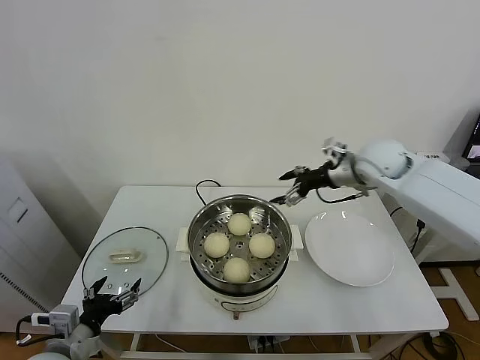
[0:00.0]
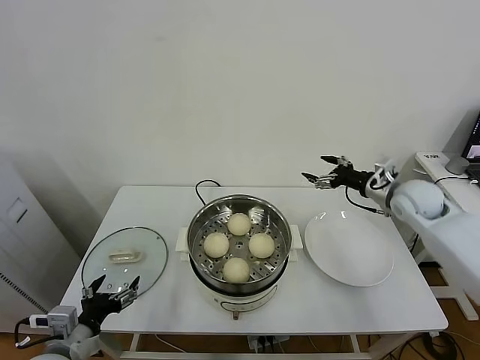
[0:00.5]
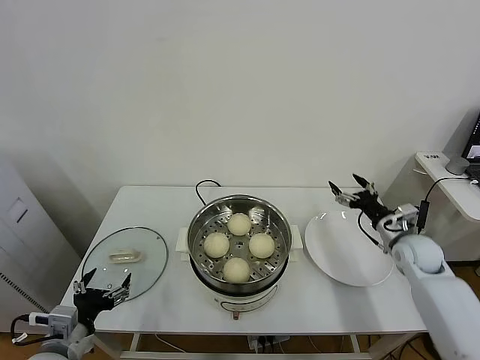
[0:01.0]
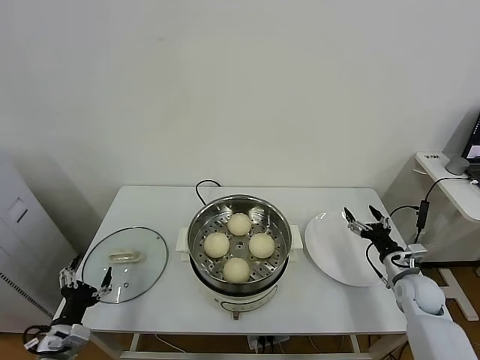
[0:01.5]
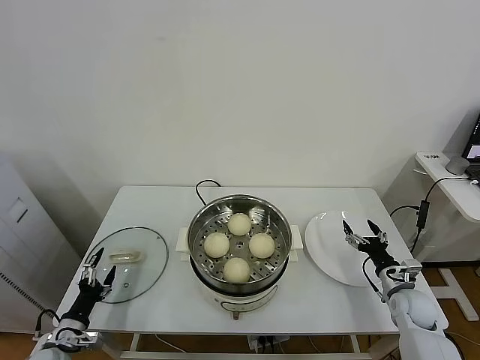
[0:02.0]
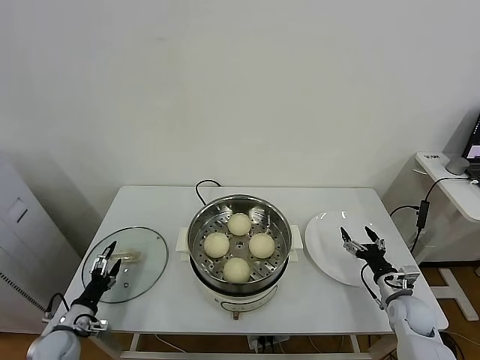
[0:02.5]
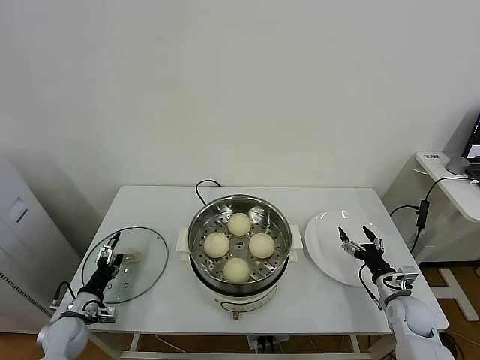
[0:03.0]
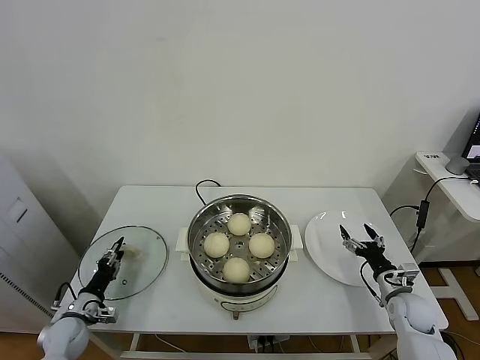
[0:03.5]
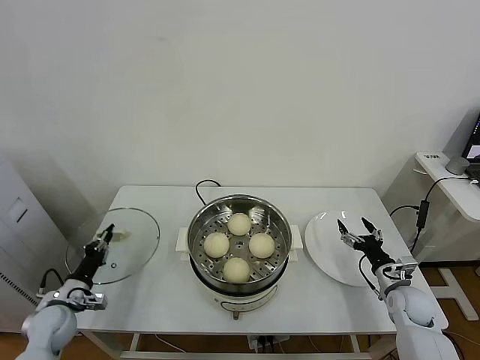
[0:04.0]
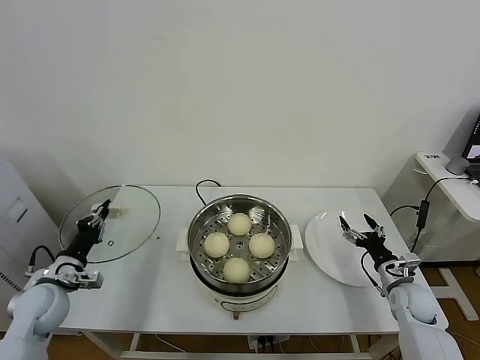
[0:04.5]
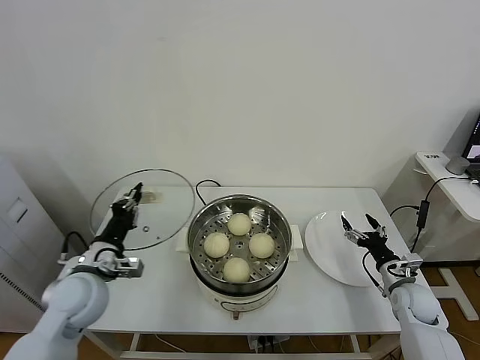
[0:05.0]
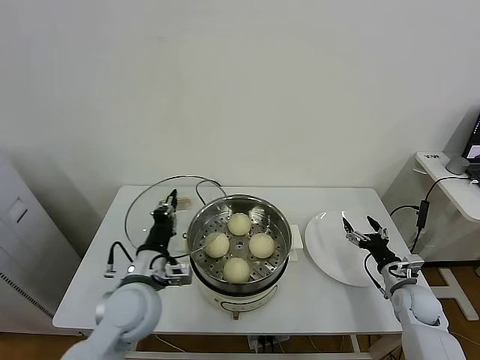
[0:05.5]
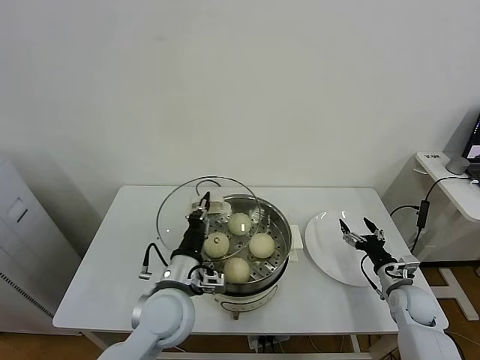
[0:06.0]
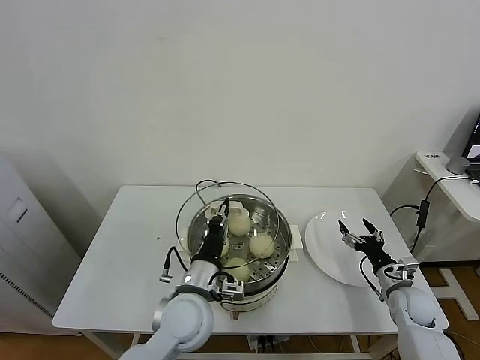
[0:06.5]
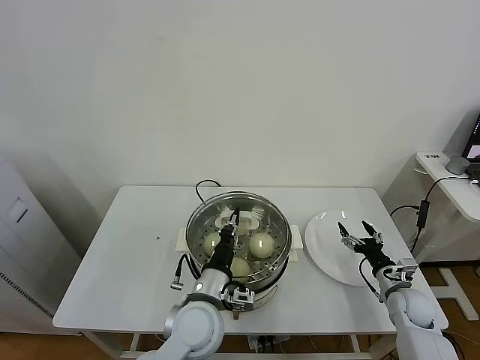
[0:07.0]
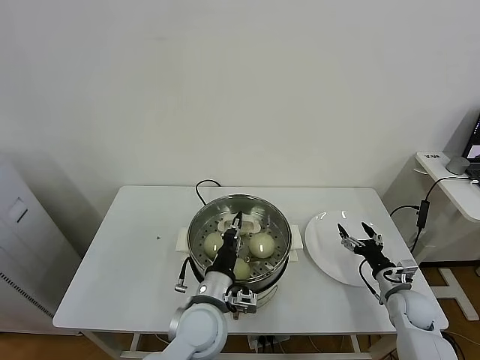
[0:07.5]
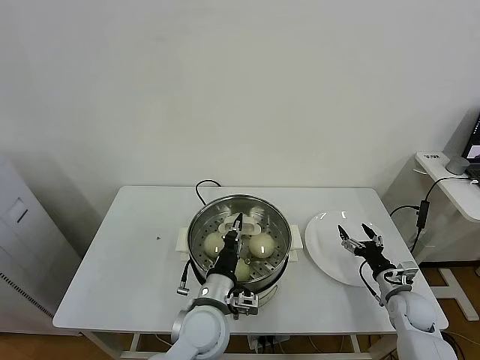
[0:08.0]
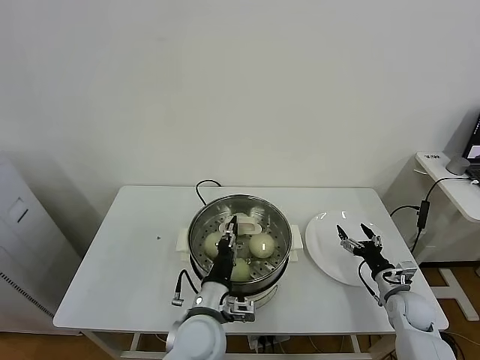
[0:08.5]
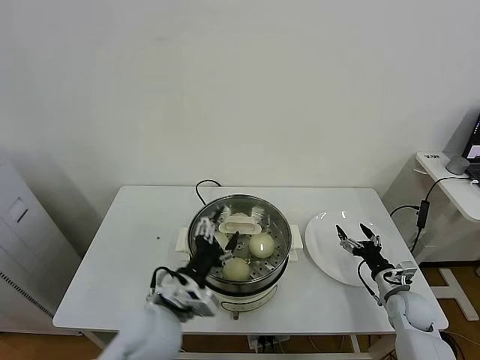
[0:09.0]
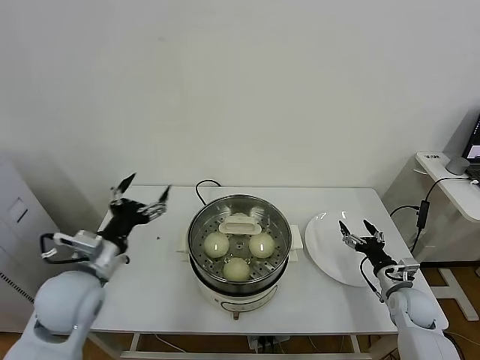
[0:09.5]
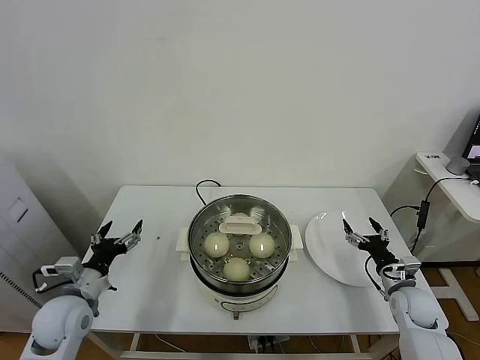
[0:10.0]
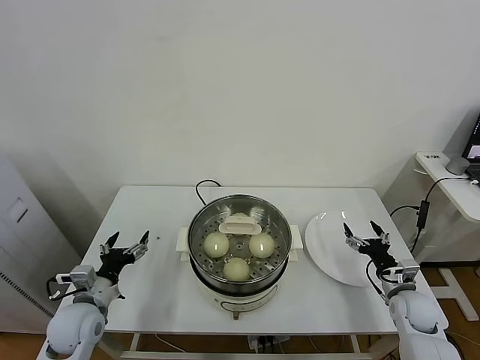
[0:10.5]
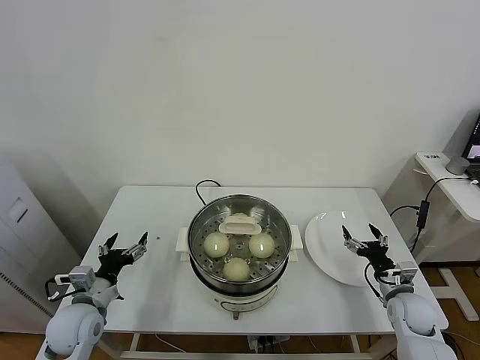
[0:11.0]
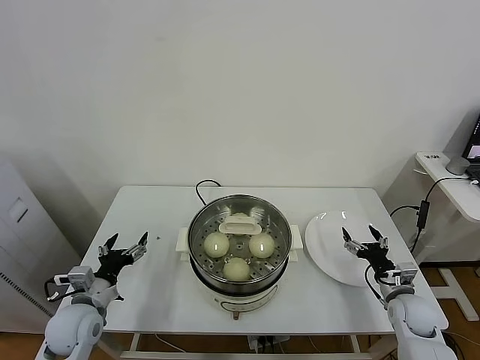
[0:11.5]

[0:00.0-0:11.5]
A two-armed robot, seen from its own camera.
Task of the whole recording: take steamed baozi put them in steamer.
Step, 0:00.0 to 0:03.5: Grasp the pot lid with left gripper.
Step, 0:04.0 to 0:09.0: Place the pot lid on the steamer with left gripper.
0:00.0 to 0:02.0: The left gripper is displaced downward and to the left by approximately 20 cm, while the right gripper shifts roughly 35 cm downward and backward.
0:02.0 to 0:04.0: The left gripper is displaced forward by some 10 cm, and closes.
0:04.0 to 0:06.0: The left gripper shifts approximately 35 cm to the right and upward.
0:06.0 to 0:07.5: The left gripper heads to the right, covering approximately 5 cm.
0:07.5 to 0:09.5: The left gripper heads to the left and upward, covering about 20 cm, and opens its fingers.
0:09.5 to 0:11.5: The left gripper moves downward and to the left, about 15 cm.
